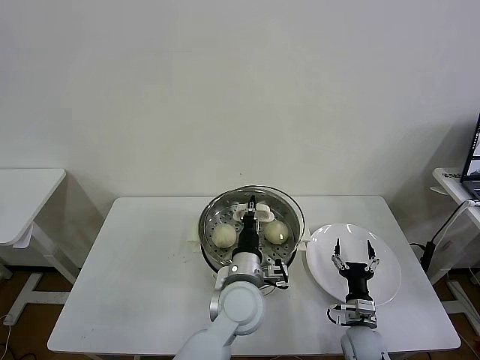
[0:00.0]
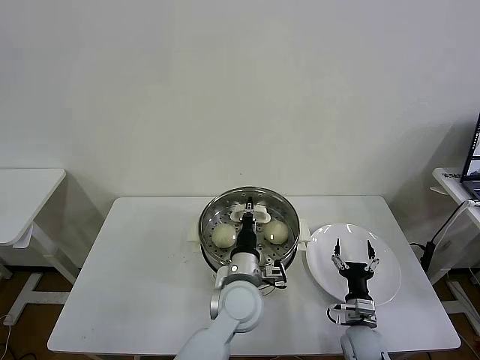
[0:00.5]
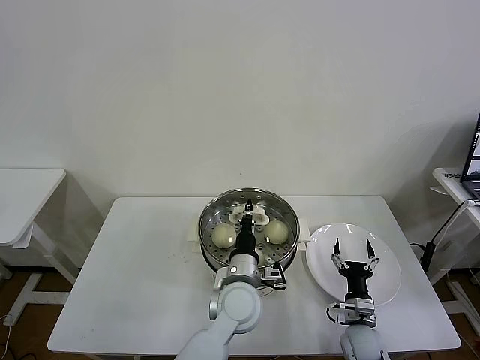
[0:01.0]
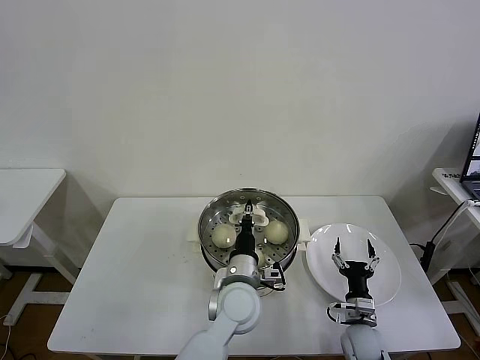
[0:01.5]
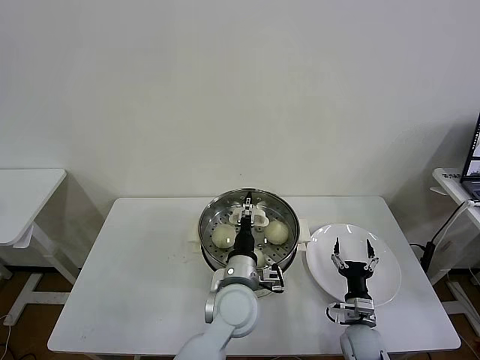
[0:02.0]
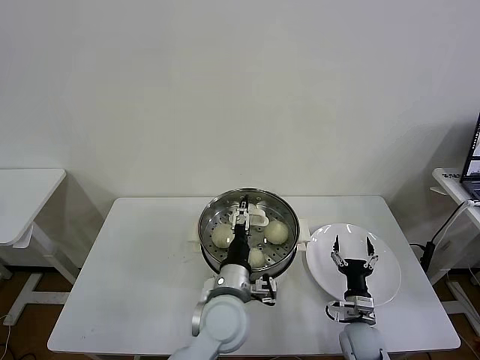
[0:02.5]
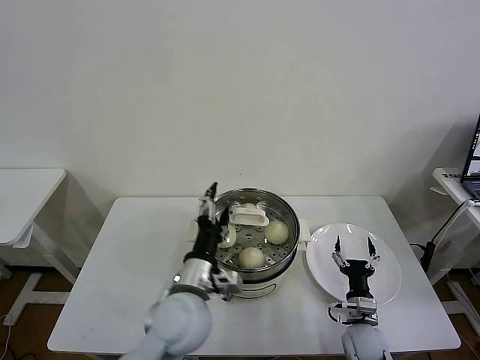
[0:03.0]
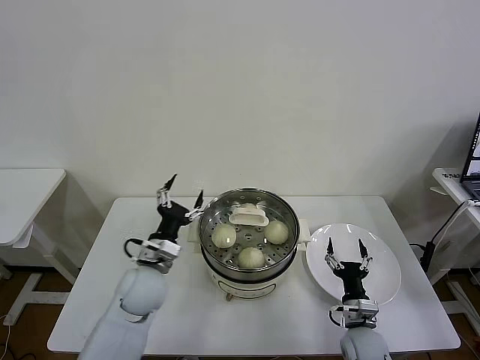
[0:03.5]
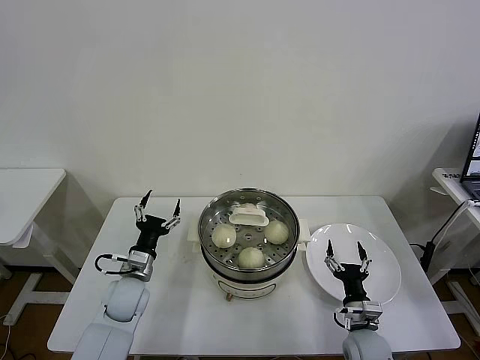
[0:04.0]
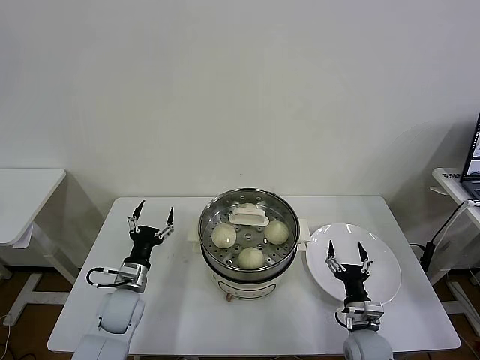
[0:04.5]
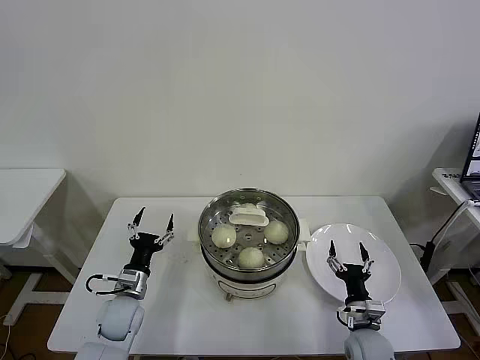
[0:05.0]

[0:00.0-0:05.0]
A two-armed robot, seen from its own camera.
Task of the whole recording: take steamed baozi put them in steamer then cover it.
0:00.0 to 0:02.5: The left gripper opens its fingers.
0:02.5 to 0:05.0: The left gripper goes some 30 cm to the left and downward.
